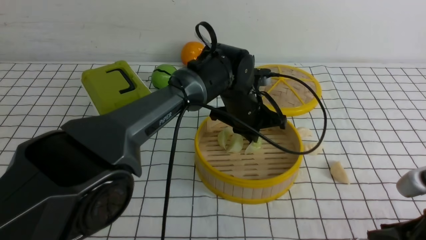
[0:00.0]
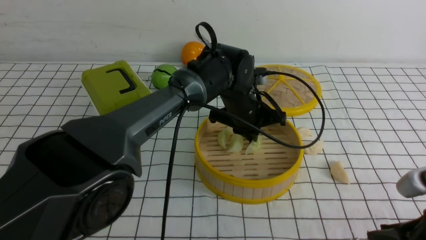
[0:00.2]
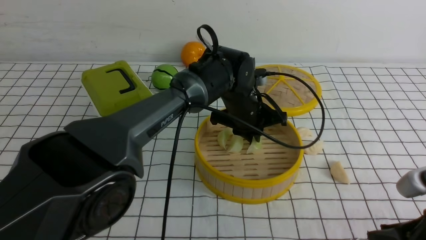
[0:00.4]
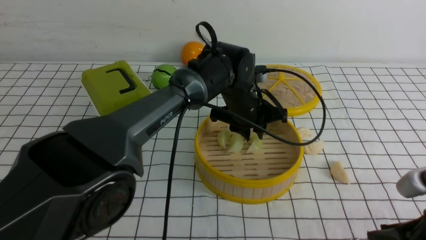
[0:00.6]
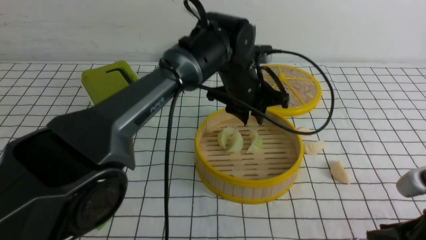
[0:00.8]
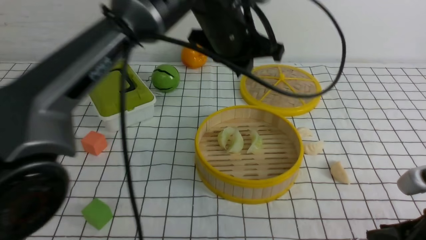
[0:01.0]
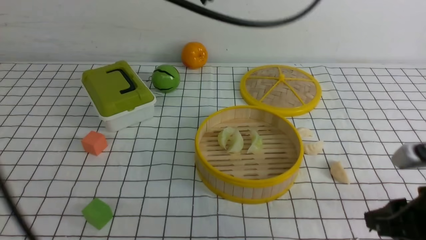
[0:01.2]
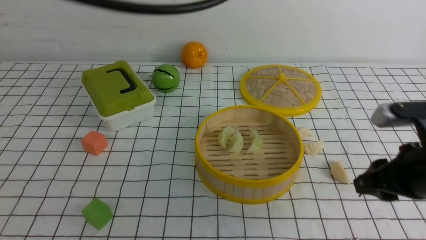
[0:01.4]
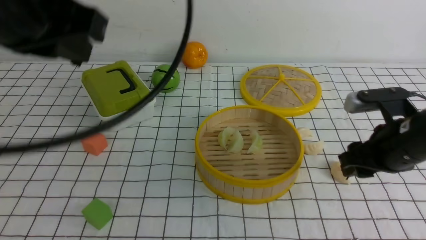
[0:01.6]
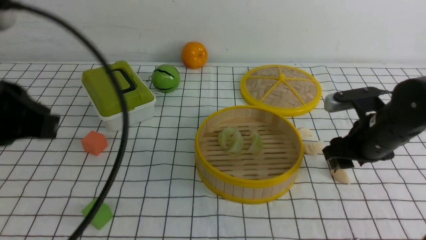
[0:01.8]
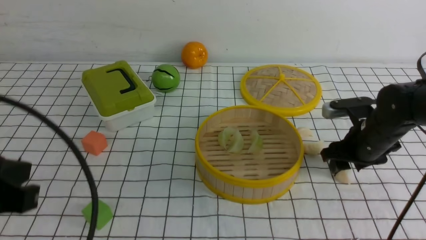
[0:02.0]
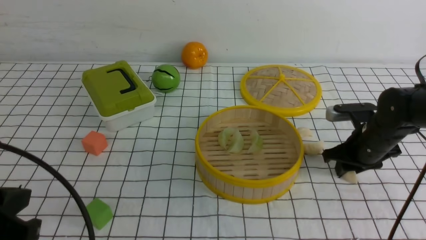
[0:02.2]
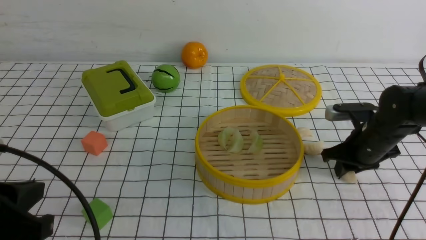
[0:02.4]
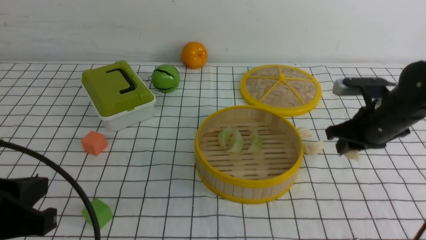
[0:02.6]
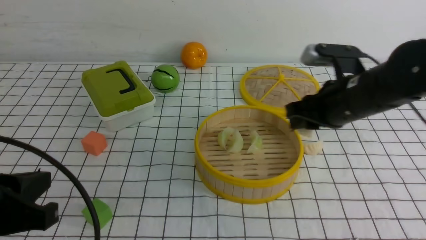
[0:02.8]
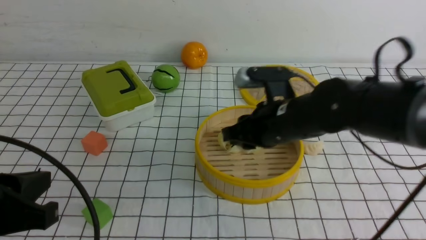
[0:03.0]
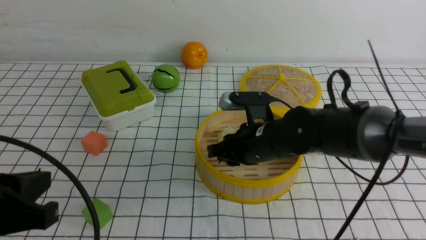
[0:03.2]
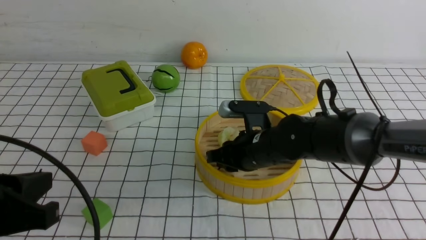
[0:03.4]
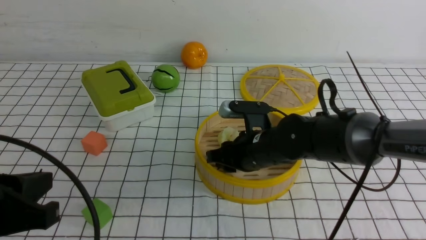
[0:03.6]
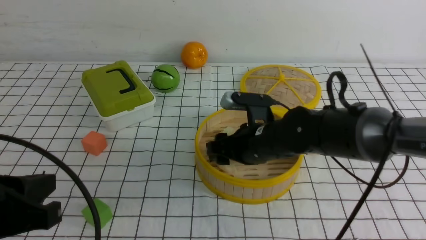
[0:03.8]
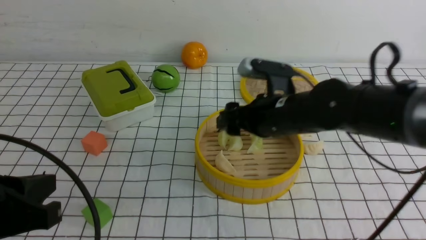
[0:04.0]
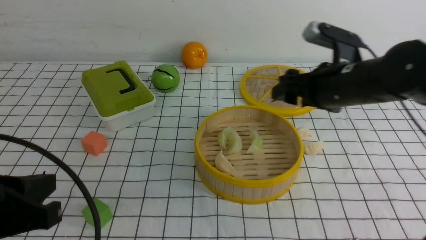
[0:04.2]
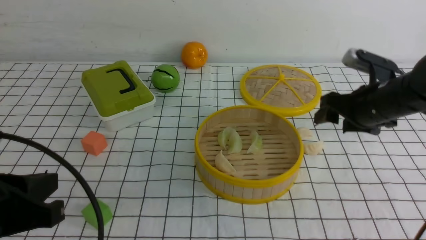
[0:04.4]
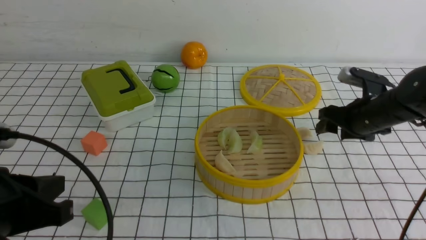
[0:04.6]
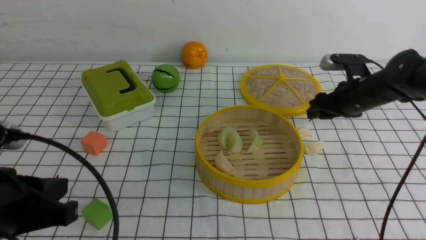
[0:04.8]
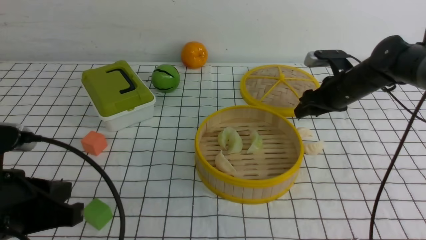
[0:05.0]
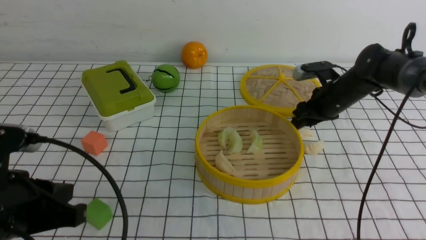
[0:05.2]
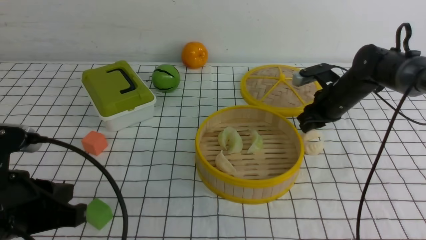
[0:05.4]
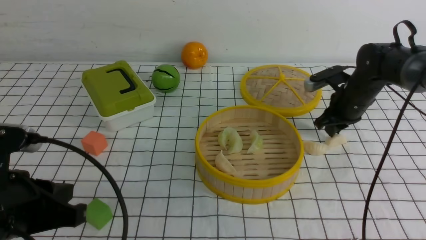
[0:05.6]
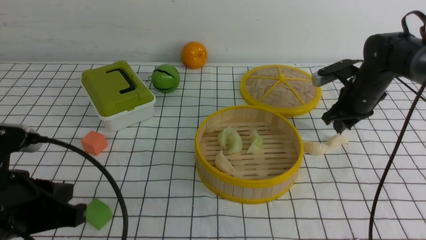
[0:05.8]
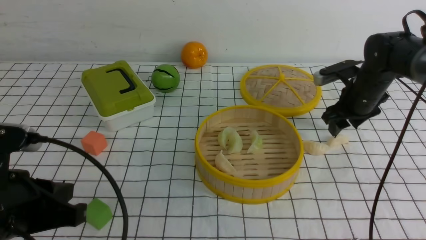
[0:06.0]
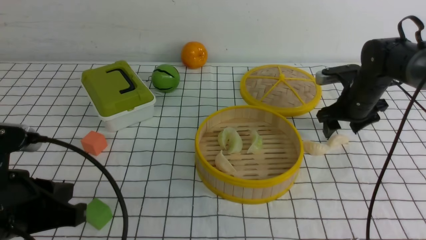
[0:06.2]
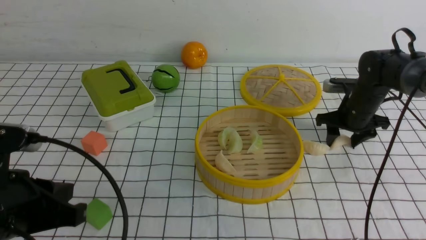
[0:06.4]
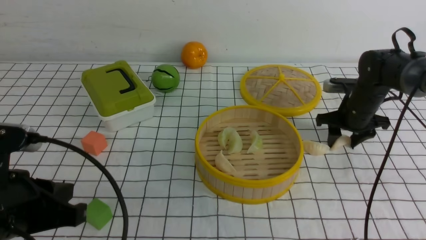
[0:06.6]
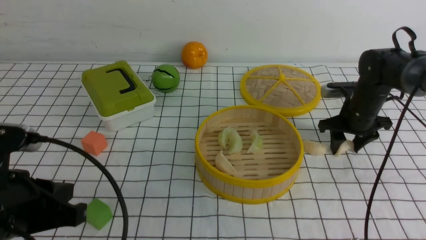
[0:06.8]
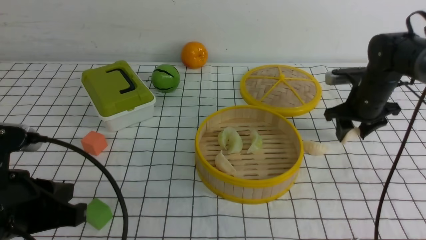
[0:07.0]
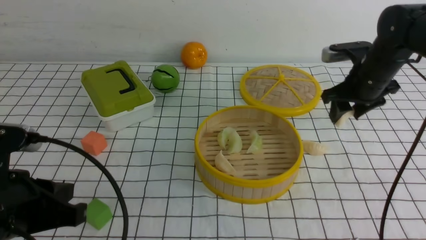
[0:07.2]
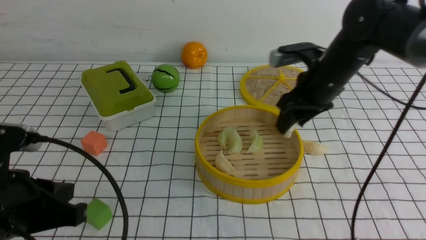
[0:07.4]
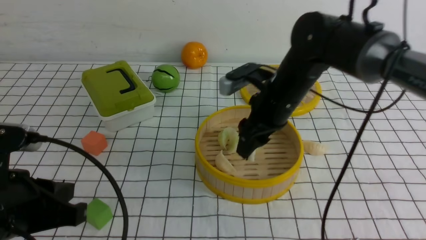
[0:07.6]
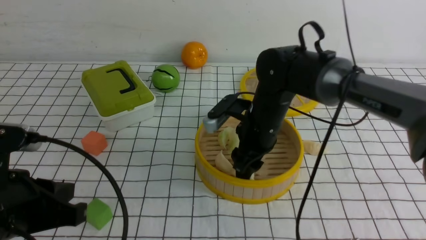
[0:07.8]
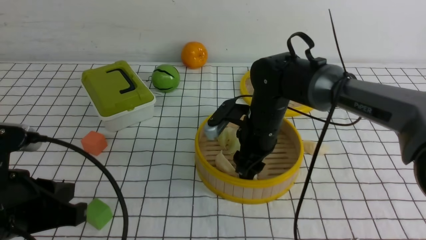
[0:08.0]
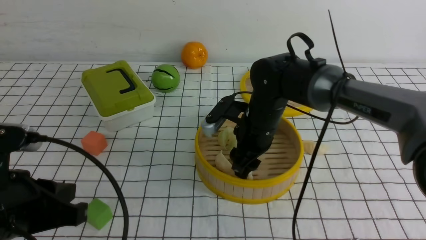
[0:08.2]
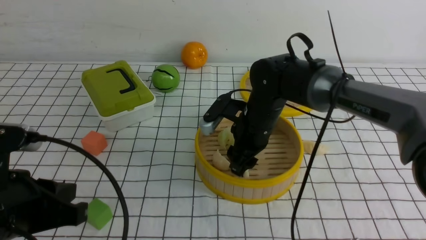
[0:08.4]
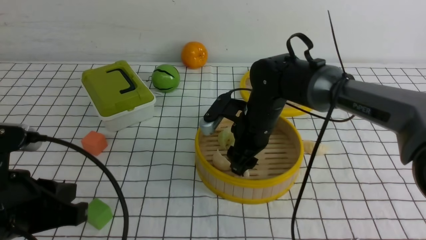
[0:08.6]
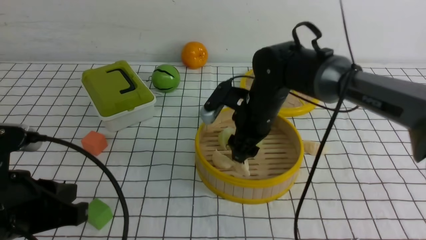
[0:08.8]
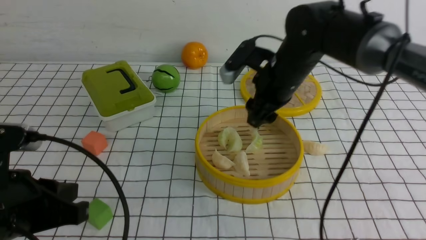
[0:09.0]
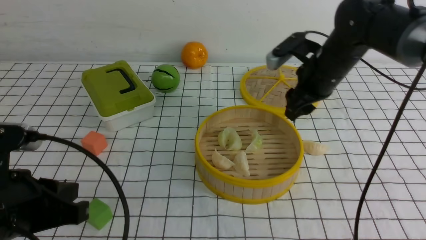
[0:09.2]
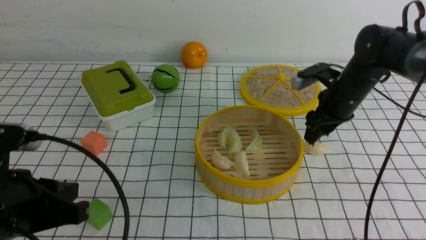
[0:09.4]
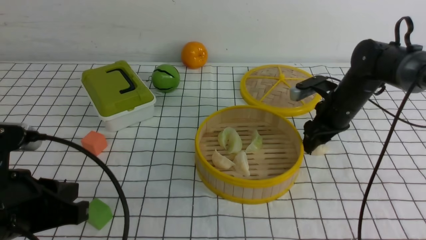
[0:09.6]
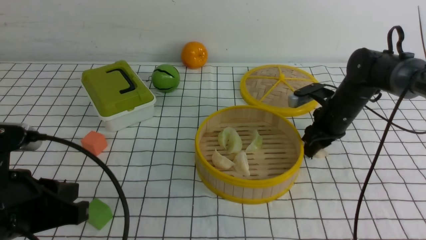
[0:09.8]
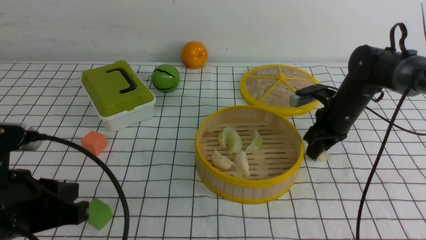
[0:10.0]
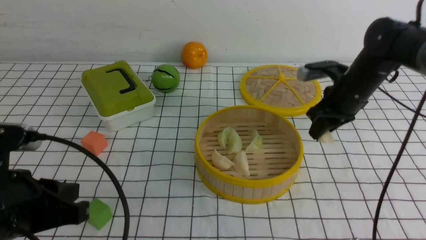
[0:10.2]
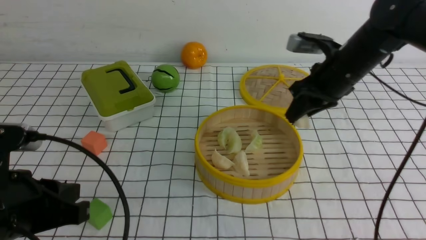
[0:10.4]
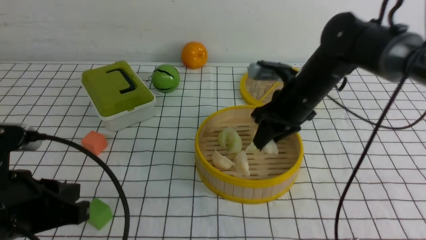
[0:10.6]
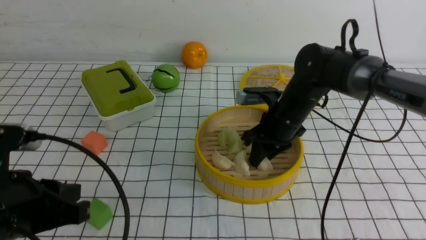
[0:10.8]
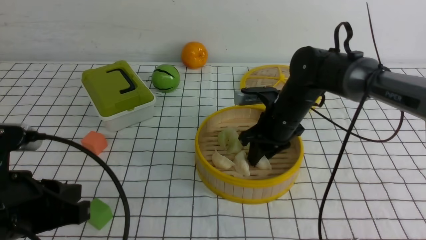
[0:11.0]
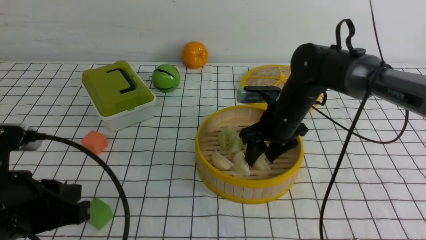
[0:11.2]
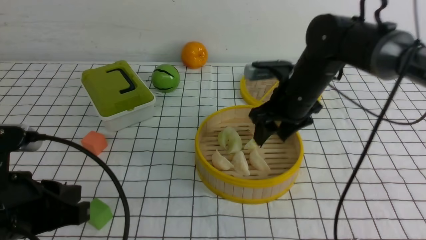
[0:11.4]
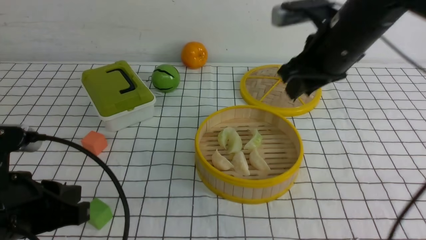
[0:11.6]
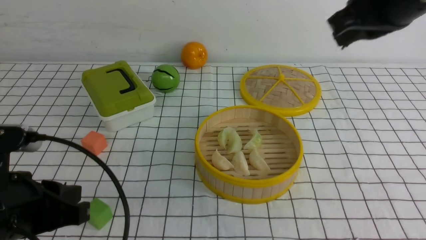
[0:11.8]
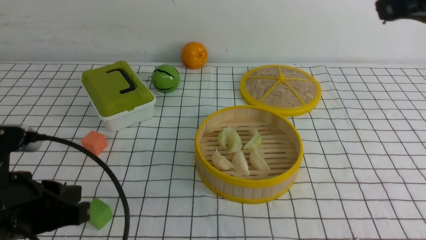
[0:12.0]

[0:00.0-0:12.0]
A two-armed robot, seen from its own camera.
Task of the whole recording: put the dumplings into the steamer on the table with the white tablecloth.
Step, 0:00.0 to 0:01.0: use the left arm to put the dumpling into the steamer.
Step, 0:01.2 to 0:02.6: use the right arm to grab a dumpling.
Step, 0:03.0 to 0:04.2: use the right arm to put the dumpling into the steamer.
Step, 0:04.4 to 0:07.2: use the right arm to grab a dumpling.
Step, 0:07.4 to 0:09.0: use the right arm to put the dumpling into the steamer.
Step, 0:09.4 to 0:10.0: use the right arm to grab a dumpling.
Step, 0:10.2 to 0:11.6: use the right arm to put the dumpling into the steamer.
0:00.0 to 0:01.6: The left gripper goes approximately 40 cm upward, to the left and backward, and opens and closes again; the right gripper goes about 15 cm forward, and opens its fingers.
0:01.6 to 0:03.0: The right gripper shifts some 15 cm to the left, and closes its fingers, while the left gripper travels downward and backward by about 20 cm.
0:03.0 to 0:04.4: The right gripper heads to the right, covering approximately 15 cm, and opens its fingers.
0:04.4 to 0:06.0: The right gripper goes roughly 10 cm forward, and closes, then reopens.
0:06.0 to 0:07.6: The right gripper travels to the left and backward by about 20 cm.
0:07.6 to 0:09.0: There are only small adjustments of the grippers.
0:09.0 to 0:10.4: The right gripper travels to the right by some 5 cm, and closes.
0:10.4 to 0:12.0: The right gripper heads backward and upward, covering roughly 30 cm, and closes.

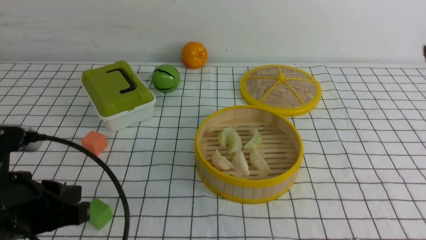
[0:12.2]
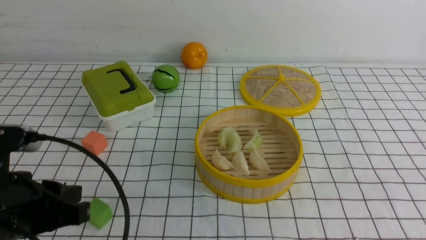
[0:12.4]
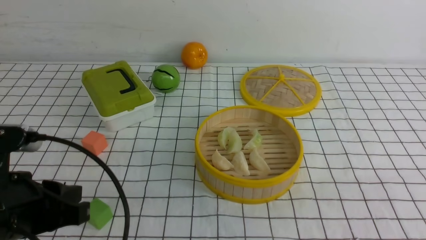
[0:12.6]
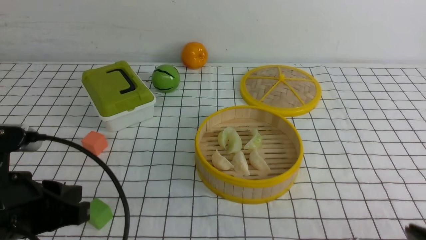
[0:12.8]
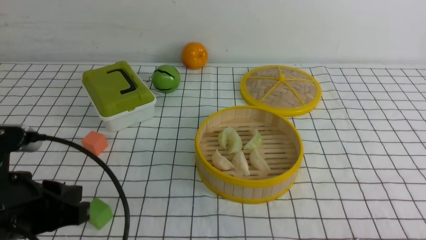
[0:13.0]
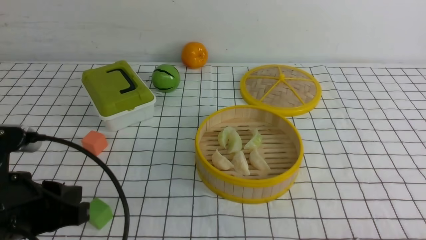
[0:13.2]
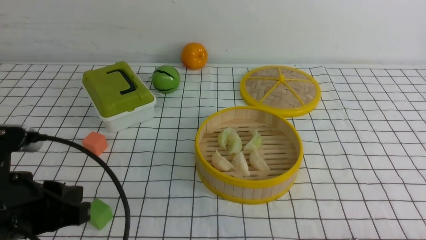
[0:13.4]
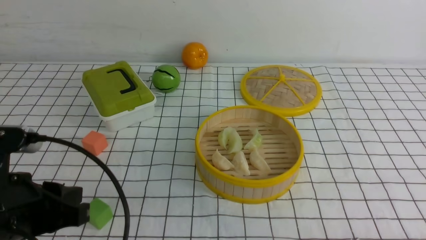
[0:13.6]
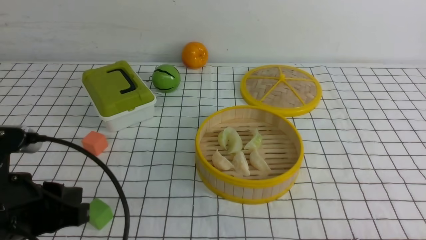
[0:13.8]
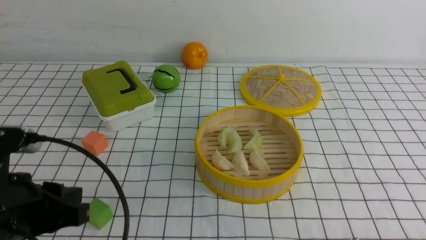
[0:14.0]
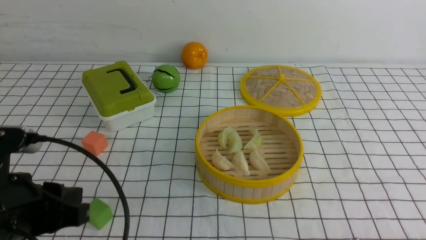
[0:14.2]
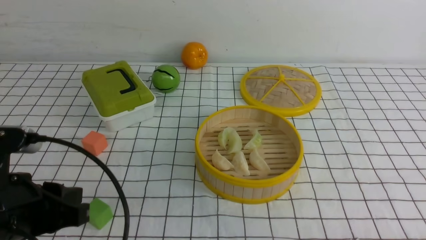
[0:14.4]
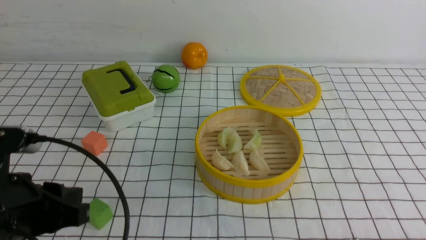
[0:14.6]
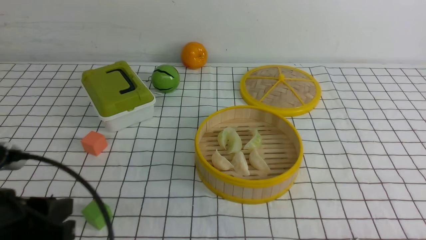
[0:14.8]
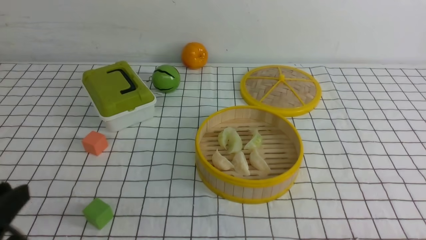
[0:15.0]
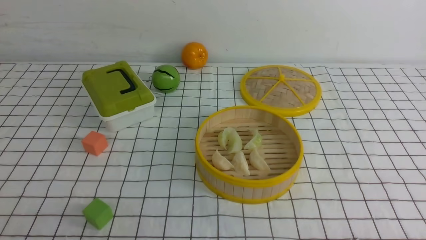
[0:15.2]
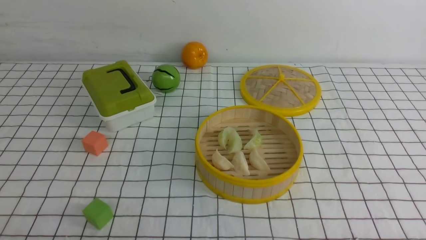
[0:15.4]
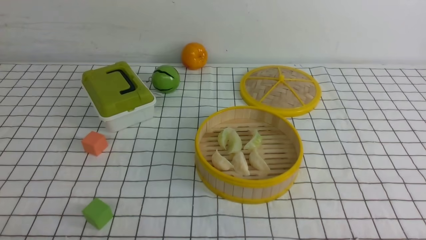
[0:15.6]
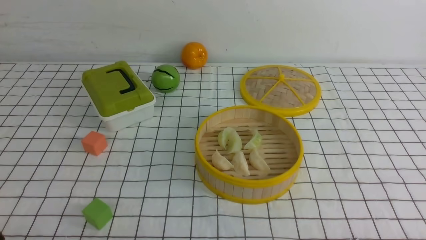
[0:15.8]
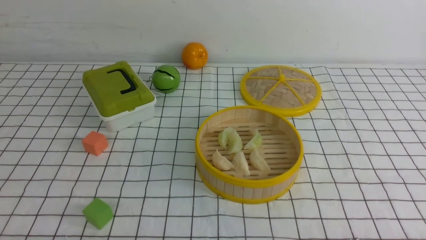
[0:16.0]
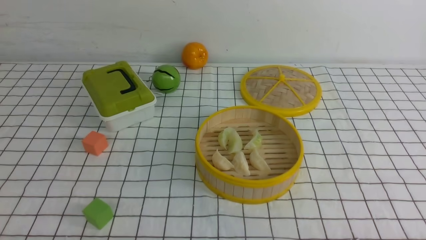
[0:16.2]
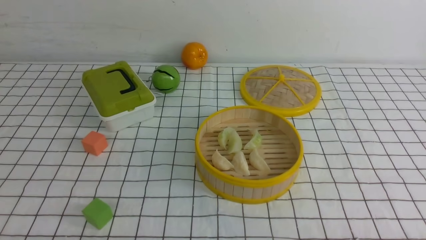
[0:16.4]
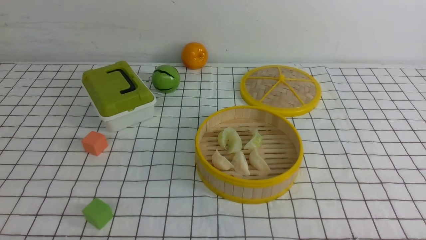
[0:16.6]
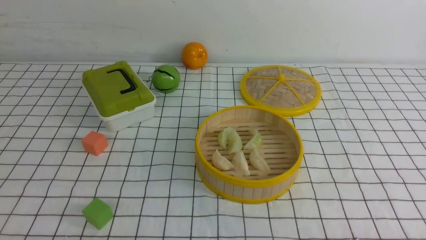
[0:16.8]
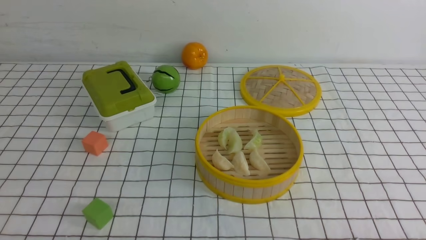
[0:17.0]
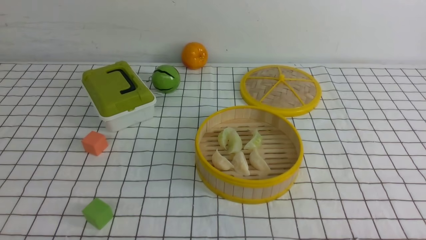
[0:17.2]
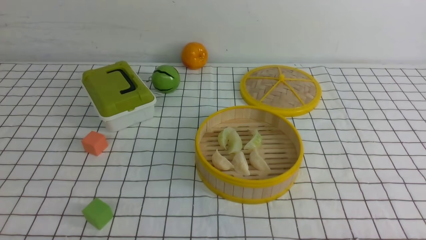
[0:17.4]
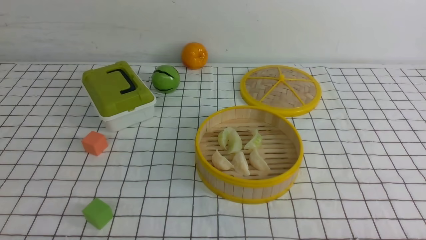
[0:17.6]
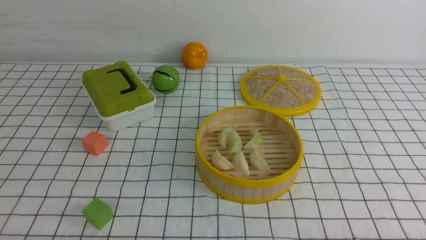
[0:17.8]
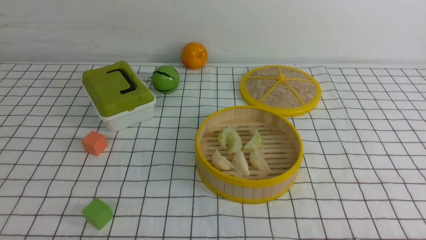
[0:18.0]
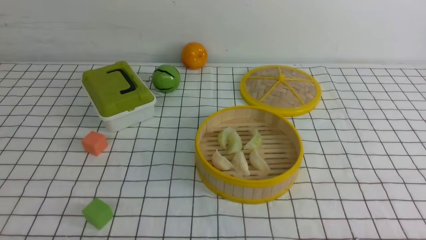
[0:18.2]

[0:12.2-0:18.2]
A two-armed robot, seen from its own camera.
Task of the whole recording: put the dumplings into the steamer on the table with the white tablecloth.
0:13.8 to 0:15.2: The left gripper moves backward and to the left, approximately 10 cm.
0:16.6 to 0:18.2: Both grippers stay put.
